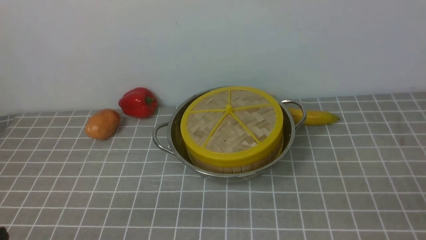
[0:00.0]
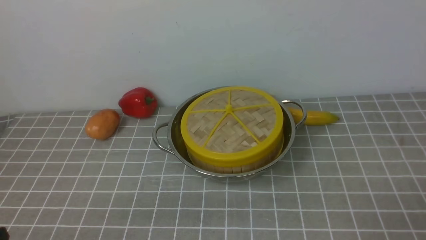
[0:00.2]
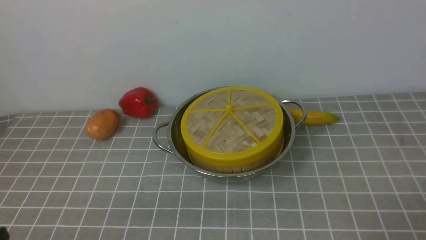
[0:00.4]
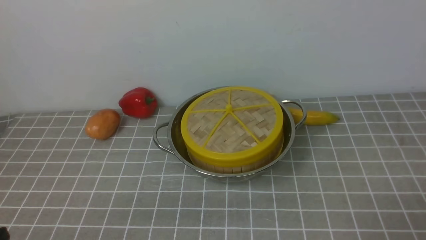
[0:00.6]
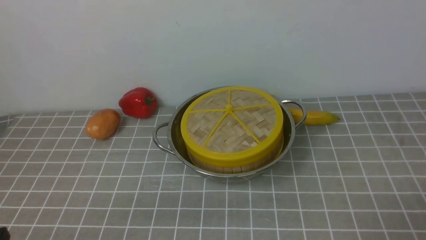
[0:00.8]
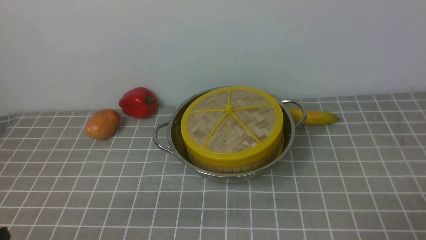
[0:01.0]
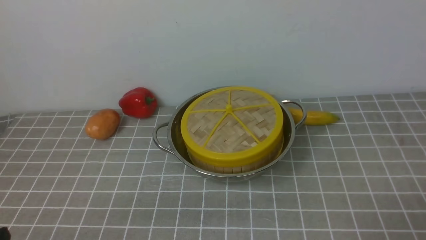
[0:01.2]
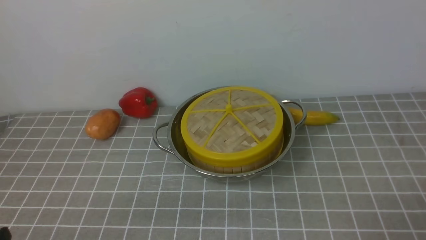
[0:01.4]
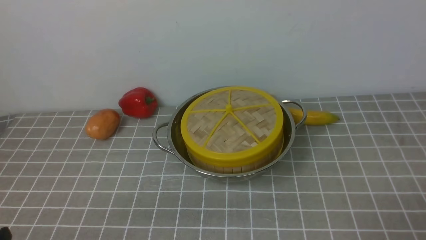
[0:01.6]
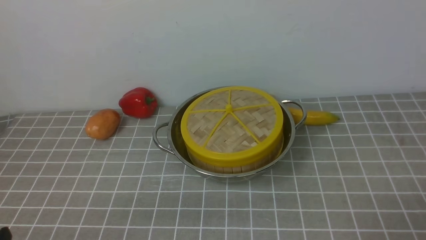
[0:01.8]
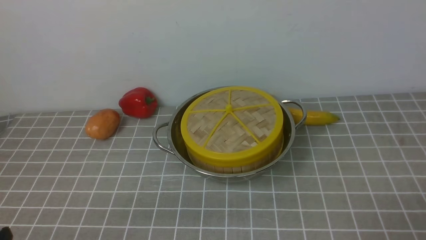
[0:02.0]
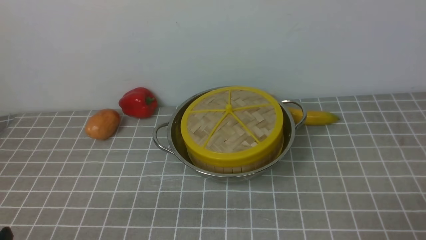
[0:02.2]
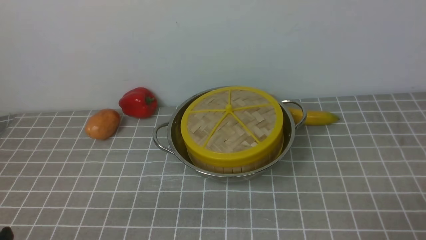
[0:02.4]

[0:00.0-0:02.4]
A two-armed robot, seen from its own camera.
Task of the whole recording: place the steamer in the pot on the grey tablecloth, and put the lid on the steamer.
0:01.2 to 0:02.4: Neither gripper changes place.
